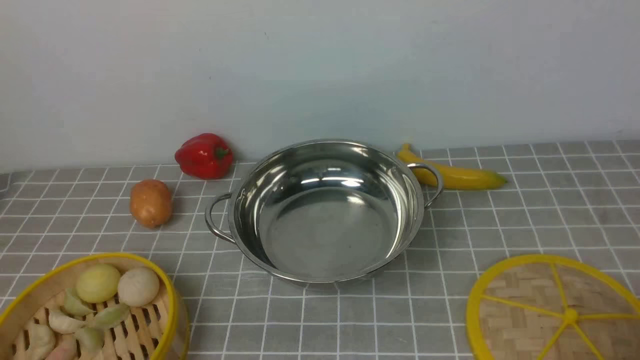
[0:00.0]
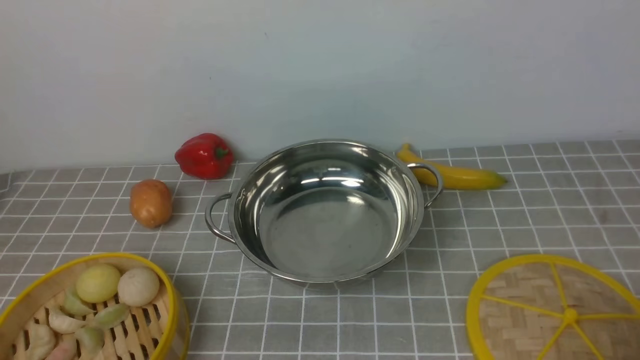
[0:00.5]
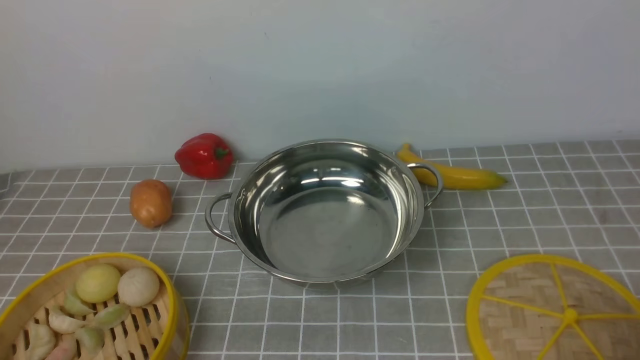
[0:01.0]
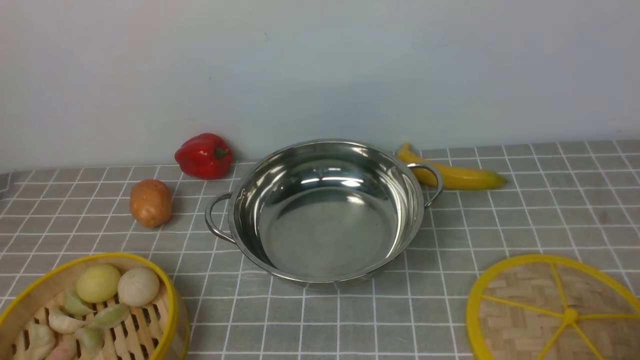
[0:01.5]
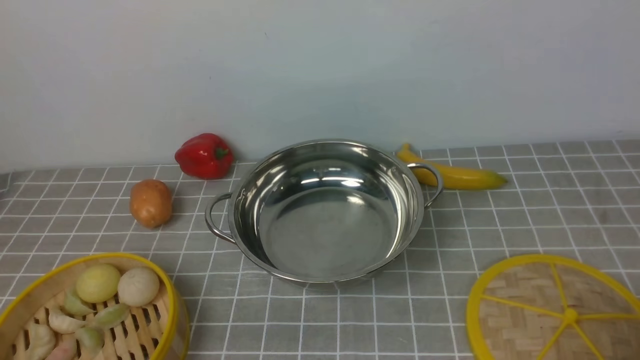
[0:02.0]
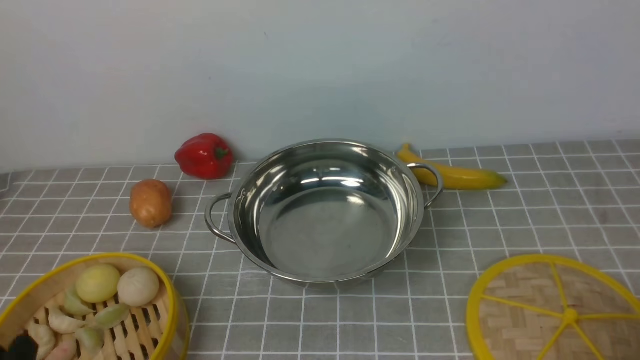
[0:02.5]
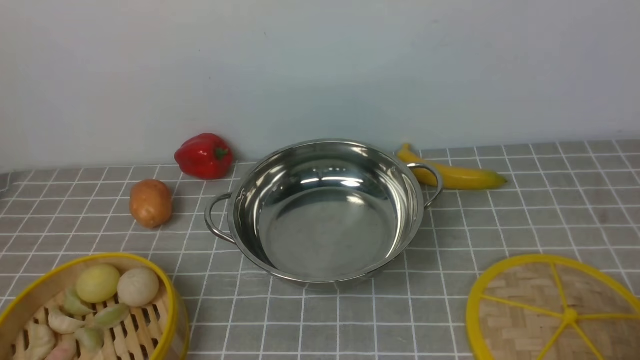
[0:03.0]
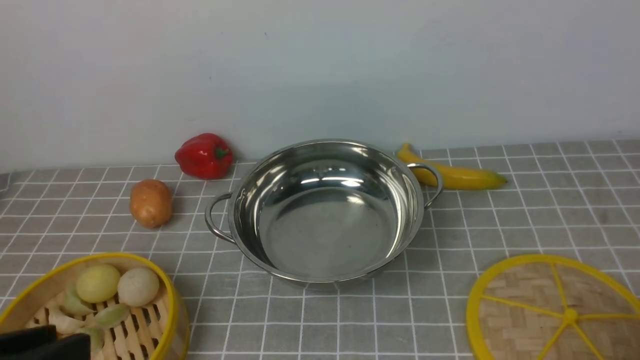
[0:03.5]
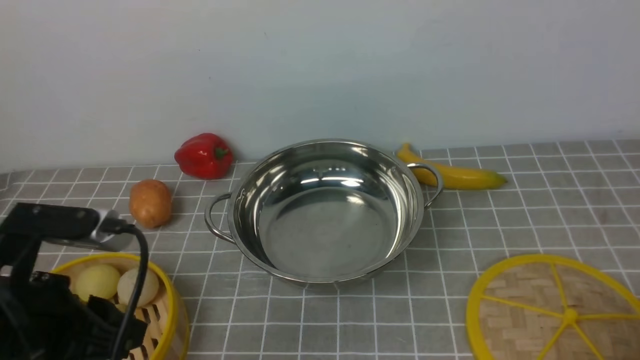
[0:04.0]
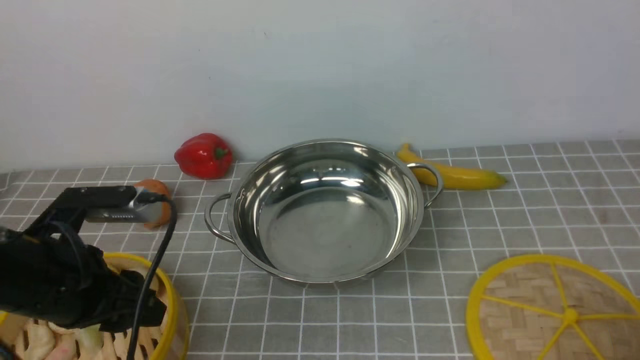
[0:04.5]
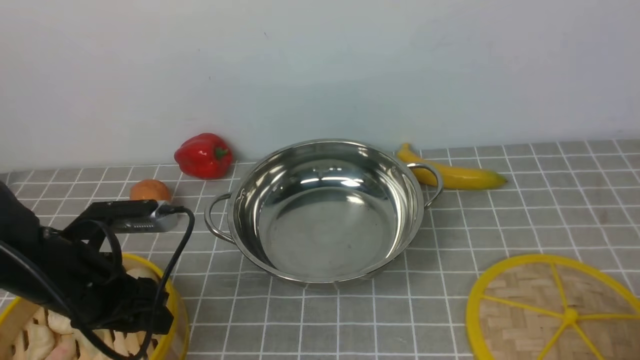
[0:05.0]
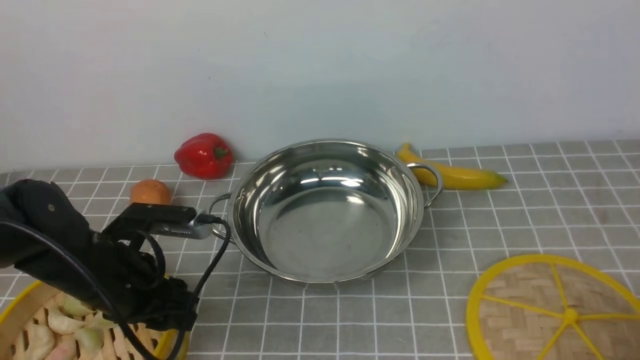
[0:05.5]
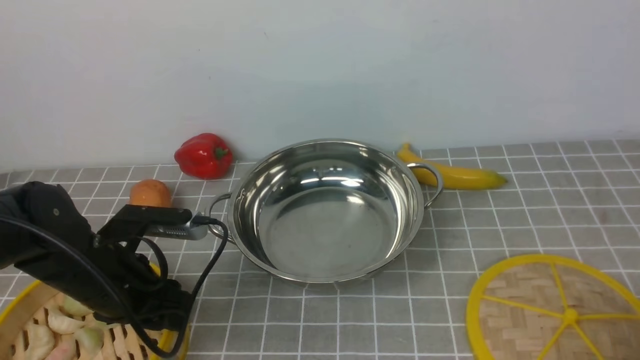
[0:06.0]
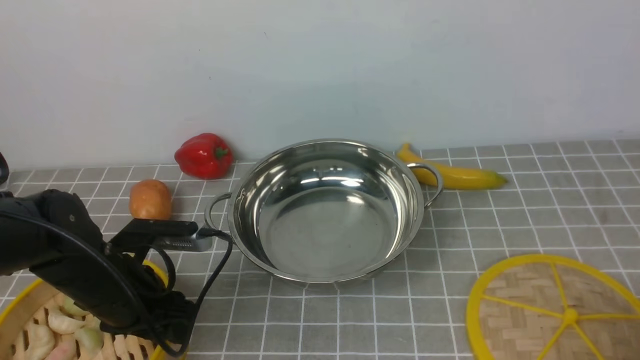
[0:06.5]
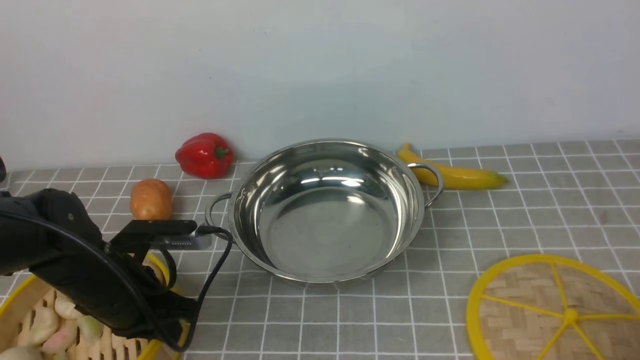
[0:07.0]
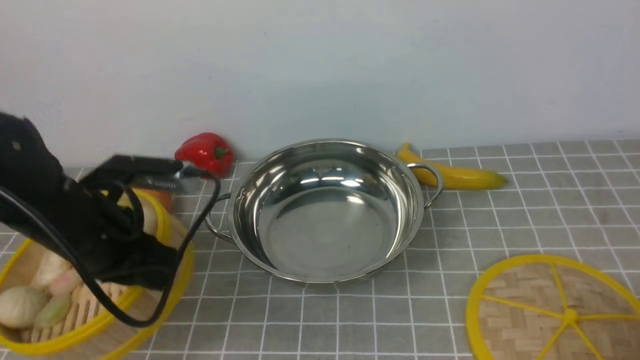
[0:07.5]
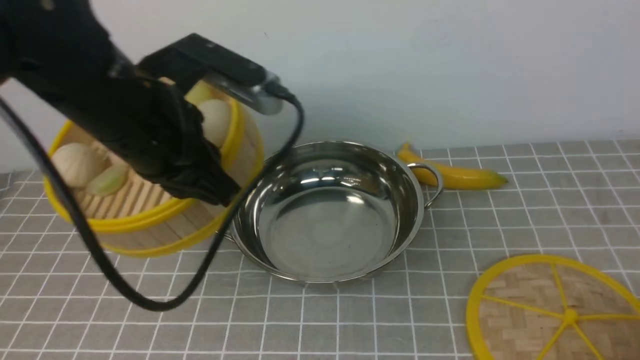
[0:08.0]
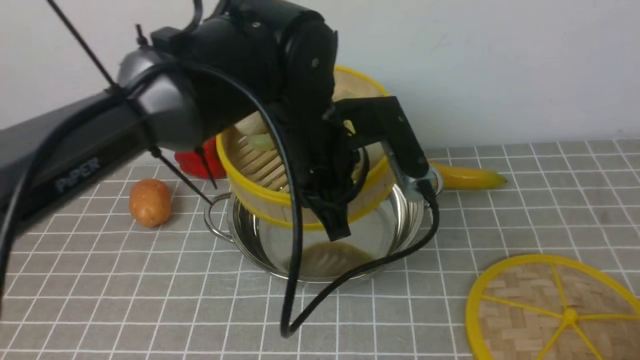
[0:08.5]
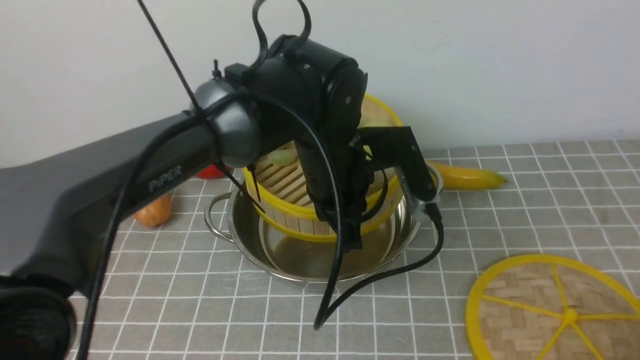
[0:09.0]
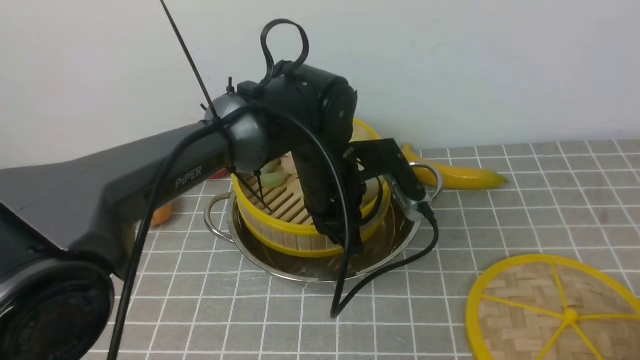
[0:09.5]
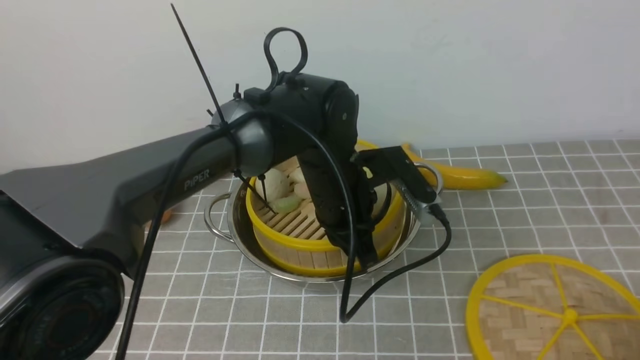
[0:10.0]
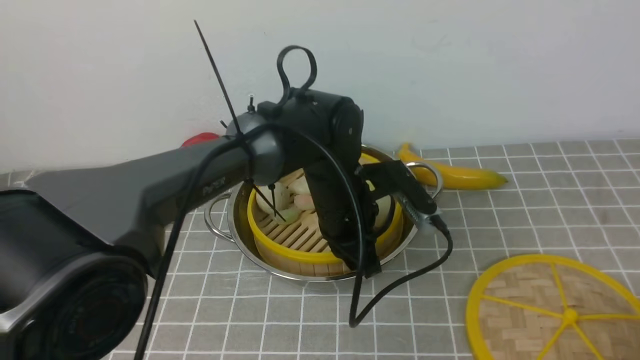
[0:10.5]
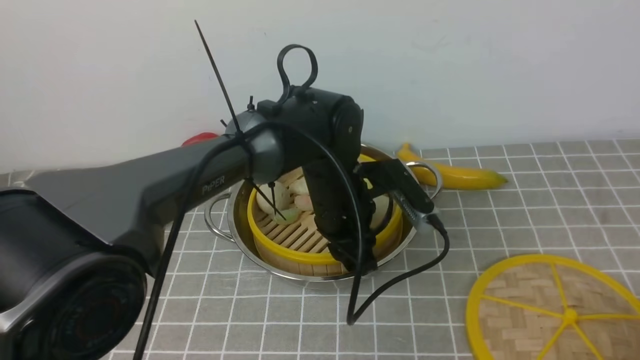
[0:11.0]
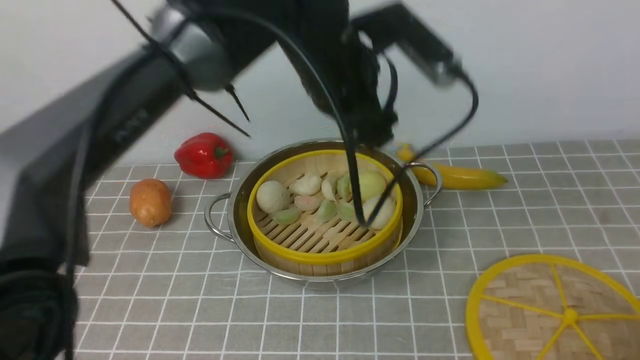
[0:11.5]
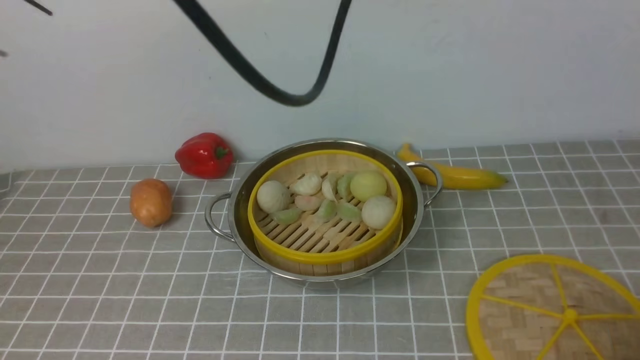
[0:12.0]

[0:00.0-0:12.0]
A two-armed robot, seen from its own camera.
Task of the whole recording: place the steamer in the pot on the grey tablecloth, and put the lid on the steamer.
Step, 0:00.0 to 0:07.0: use the left arm to lift the steamer closest to it.
Step, 0:07.5 to 0:11.0: use the left arm to put the steamer into the iron steamer pot in the middle.
0:00.0 to 0:02.0: Both grippers stay about where they are.
0:02.0 to 0:04.0: The left gripper goes approximately 15 cm forward and upward.
0:04.0 to 0:06.0: The left gripper is displaced forward and downward by some 15 cm.
0:06.0 to 0:08.0: The left gripper heads upward and to the right, covering roughly 20 cm, and closes.
0:08.0 to 0:10.0: The left gripper travels to the right, downward and forward by some 20 cm.
0:10.0 to 0:12.0: The left gripper travels upward by some 30 cm, and opens, then closes again.

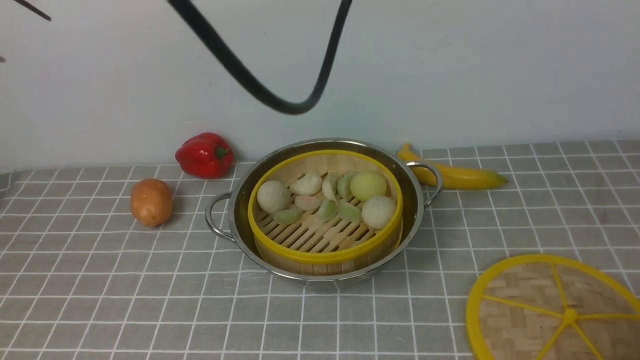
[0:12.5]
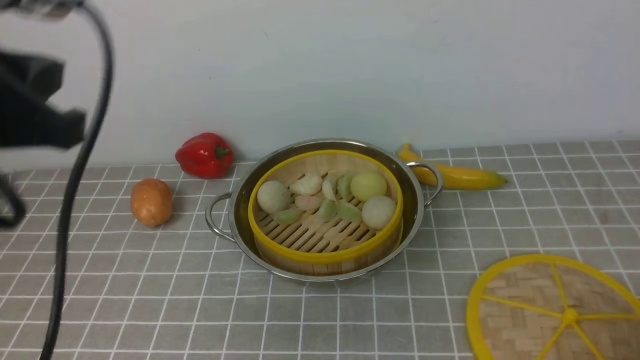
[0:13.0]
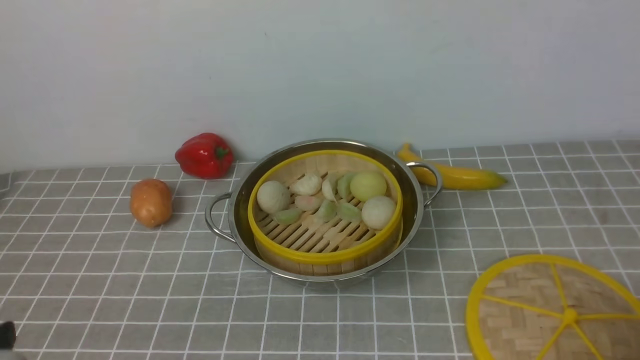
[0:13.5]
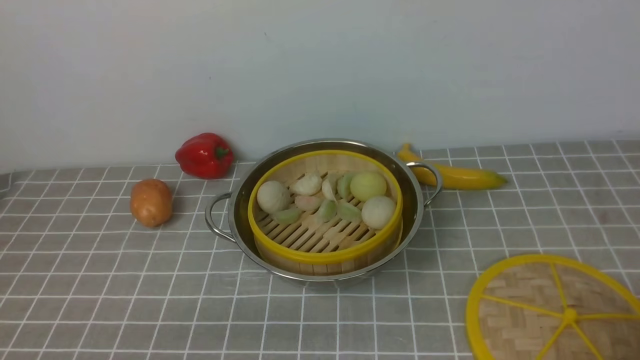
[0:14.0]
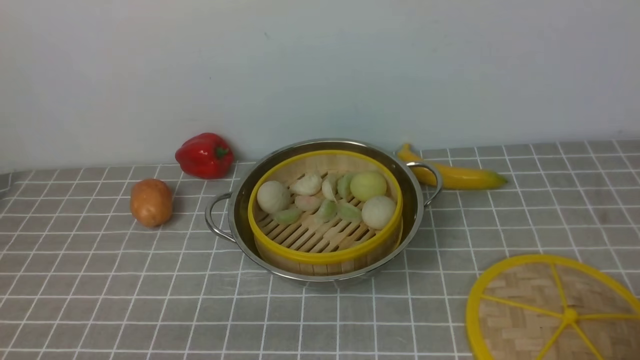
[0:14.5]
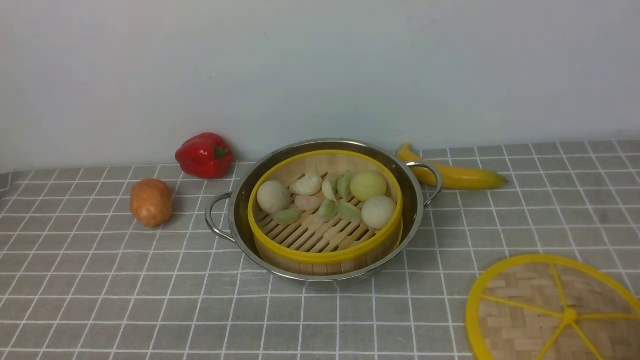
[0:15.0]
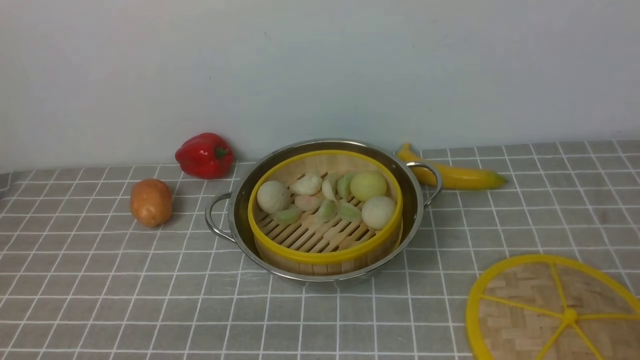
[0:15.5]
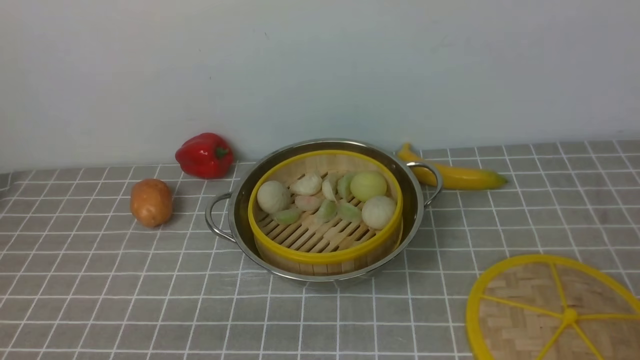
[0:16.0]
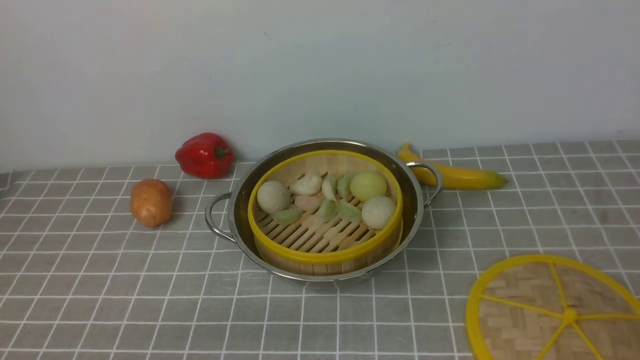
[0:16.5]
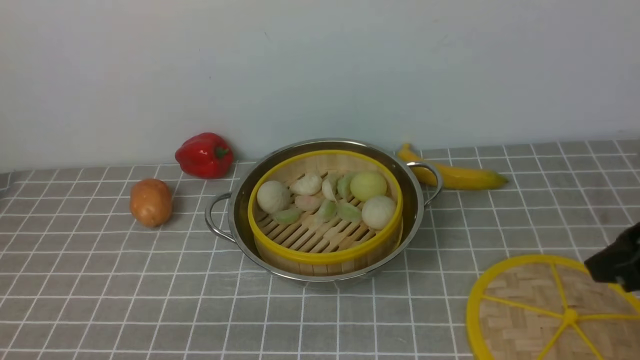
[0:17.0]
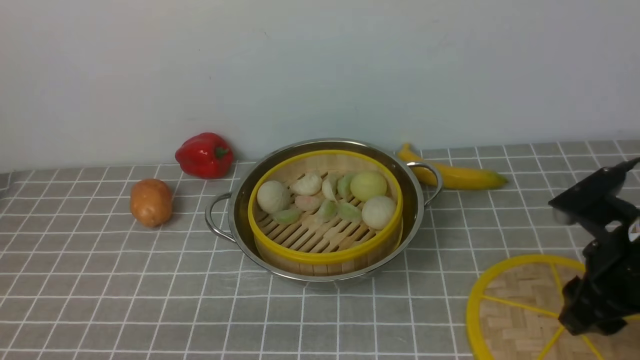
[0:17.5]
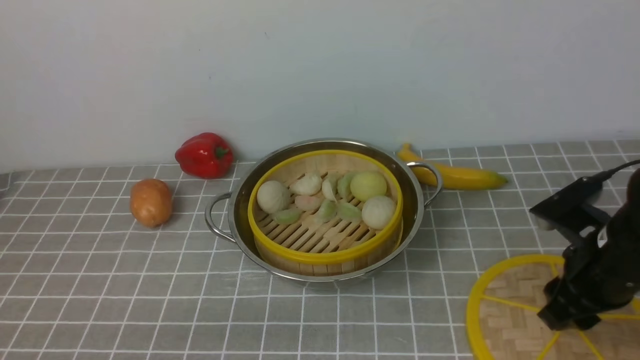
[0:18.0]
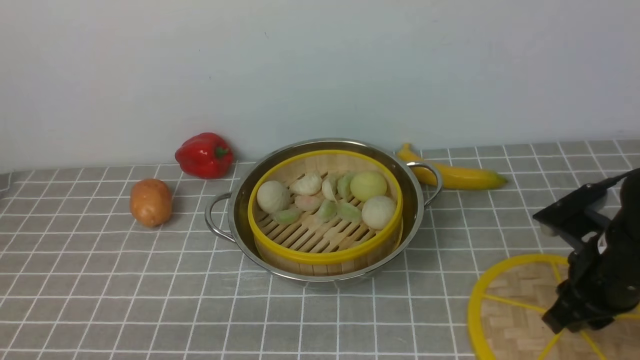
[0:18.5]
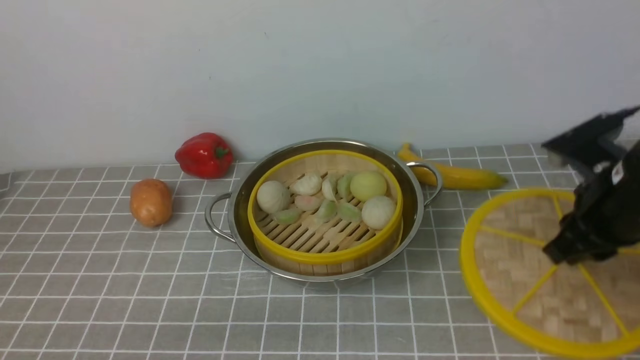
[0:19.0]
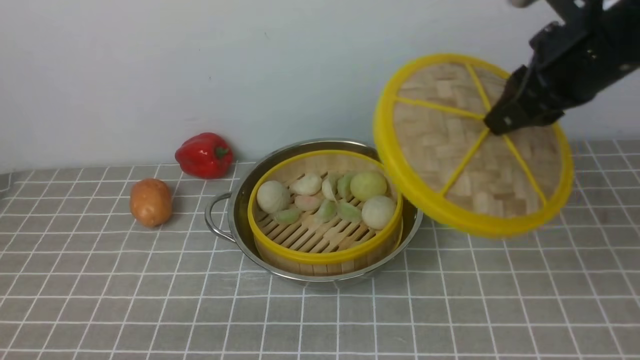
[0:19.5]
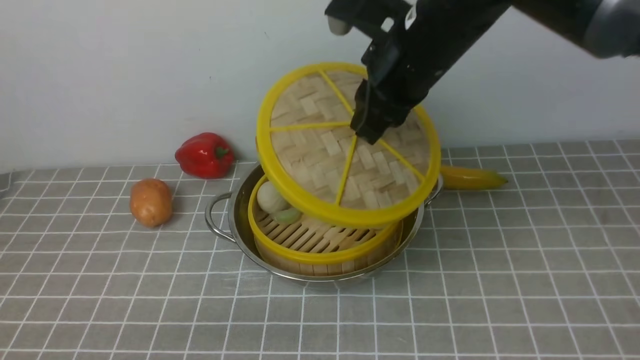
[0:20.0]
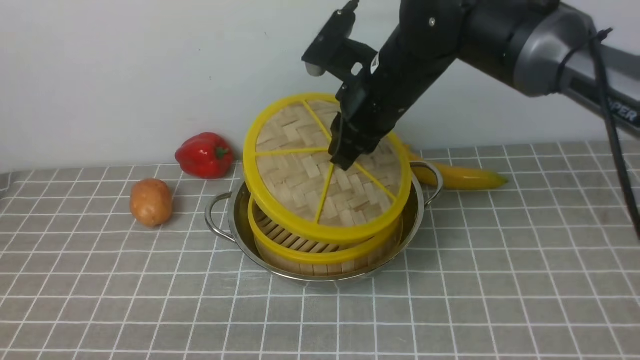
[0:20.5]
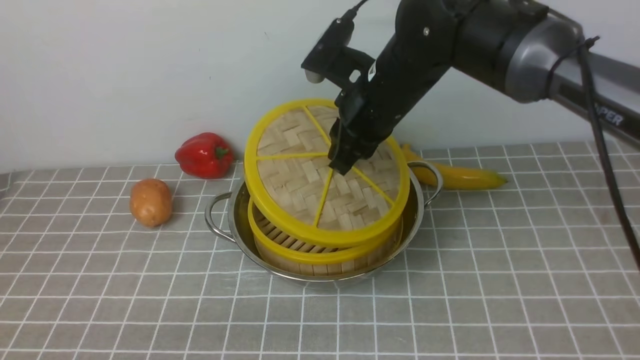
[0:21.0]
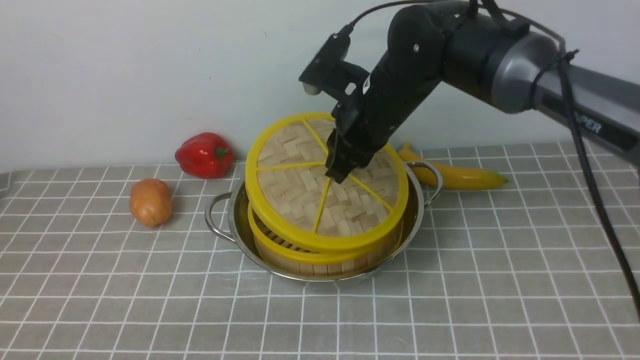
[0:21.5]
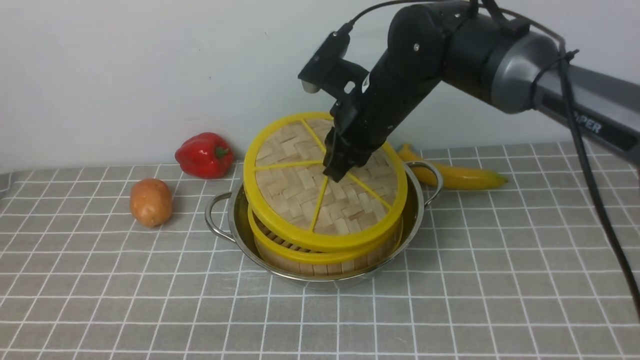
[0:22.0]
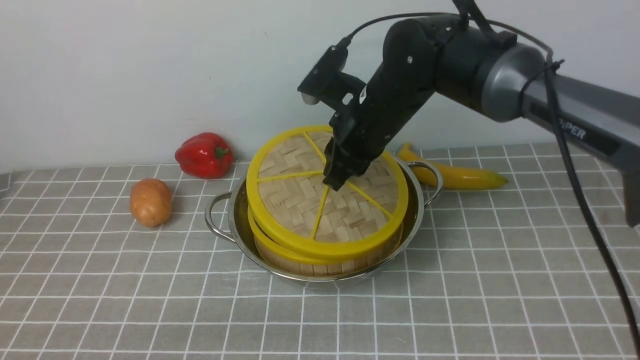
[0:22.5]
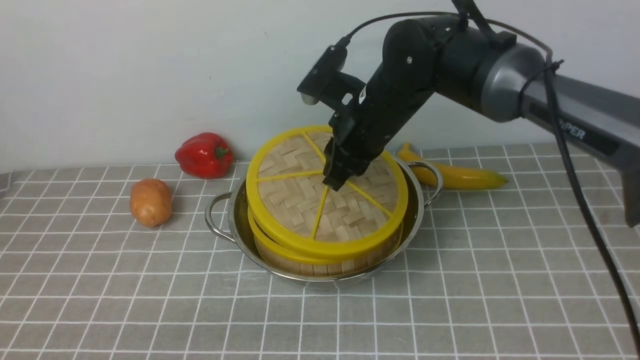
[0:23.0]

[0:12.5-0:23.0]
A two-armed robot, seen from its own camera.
Task of the whole recording: place the steamer in the pot on the grey tablecloth, and put the lid on the steamer.
Step, 0:12.5 to 0:18.5: use the right arm to lift the lid of the steamer.
0:12.5 to 0:14.5: The left gripper shifts about 40 cm downward, backward and to the left.
0:16.5 to 0:19.0: The right gripper shifts roughly 20 cm forward.
0:19.0 to 0:21.0: The right gripper goes about 25 cm to the left and forward.
0:21.0 to 0:23.0: The grippers stay close to where they were, moving slightly.
